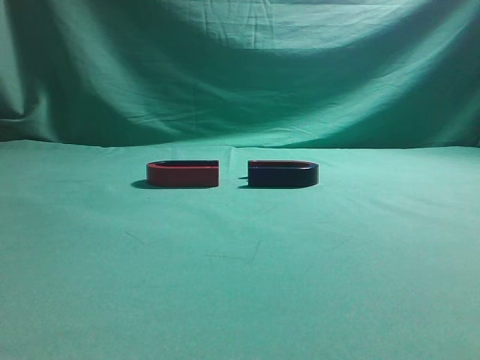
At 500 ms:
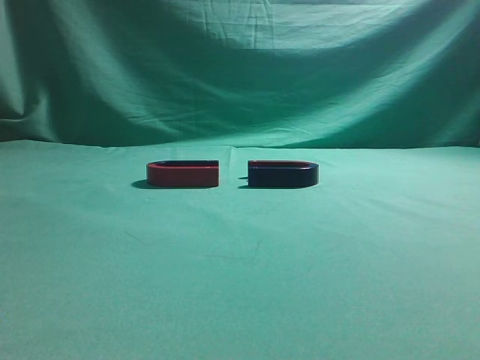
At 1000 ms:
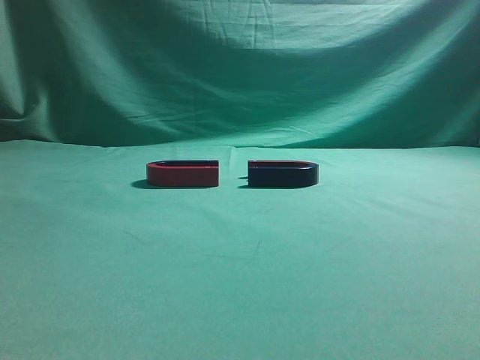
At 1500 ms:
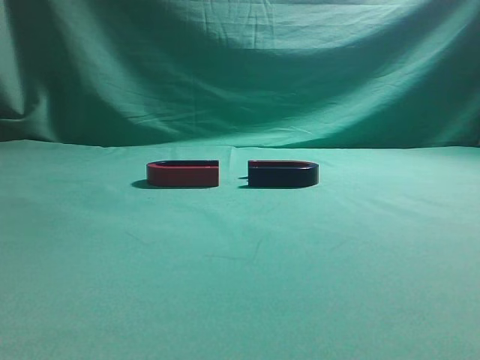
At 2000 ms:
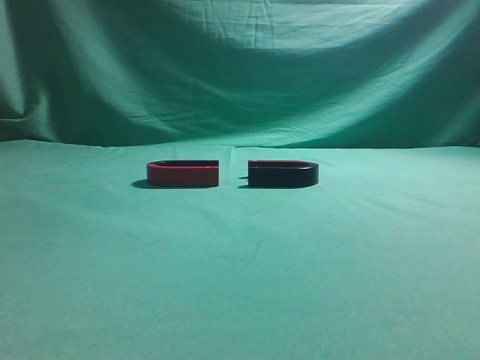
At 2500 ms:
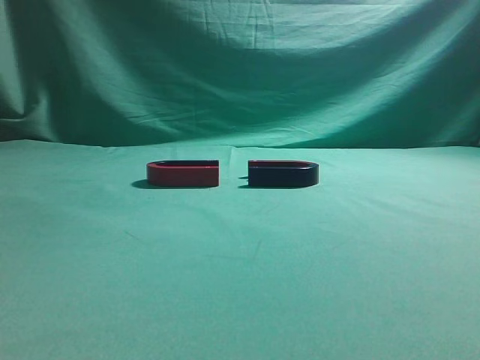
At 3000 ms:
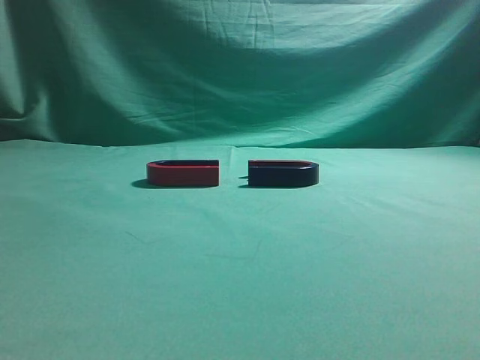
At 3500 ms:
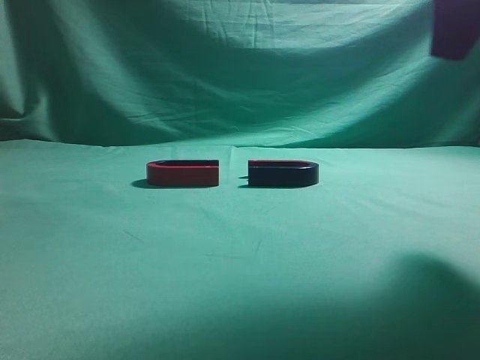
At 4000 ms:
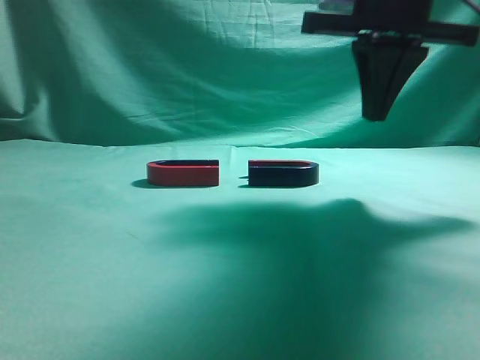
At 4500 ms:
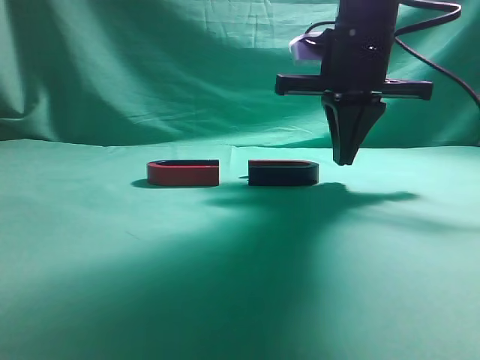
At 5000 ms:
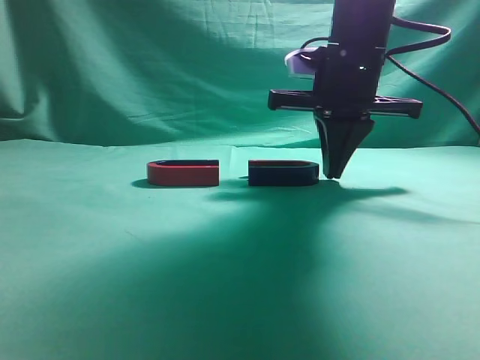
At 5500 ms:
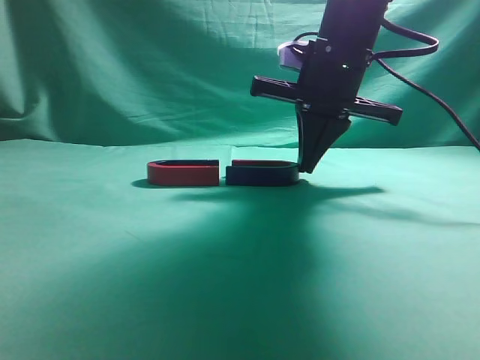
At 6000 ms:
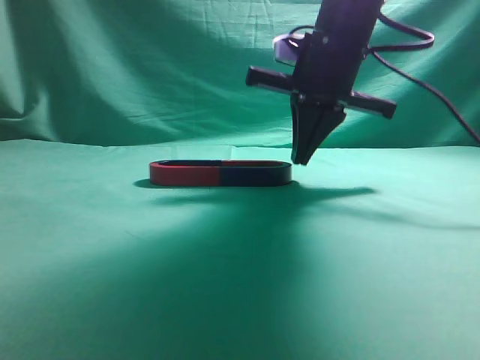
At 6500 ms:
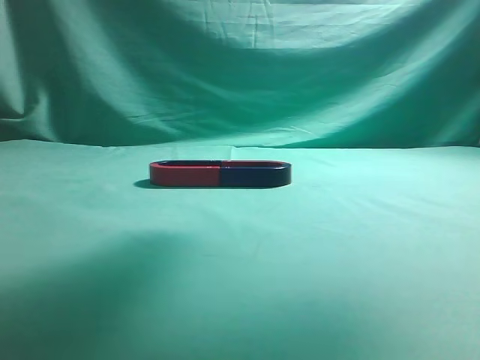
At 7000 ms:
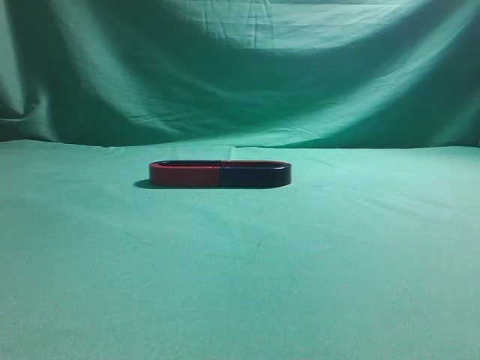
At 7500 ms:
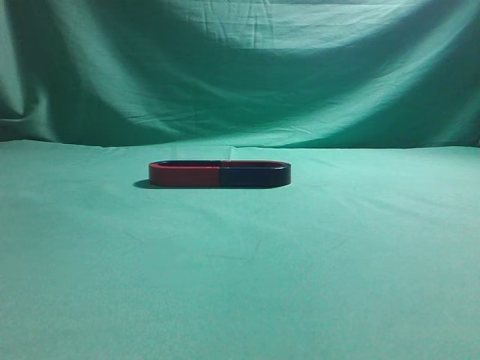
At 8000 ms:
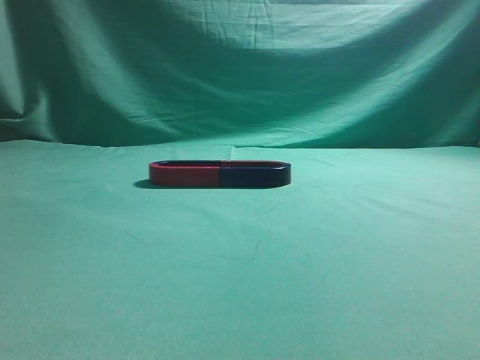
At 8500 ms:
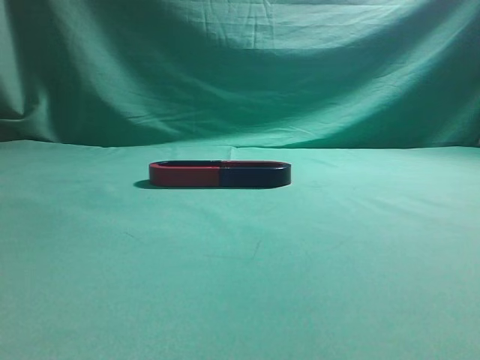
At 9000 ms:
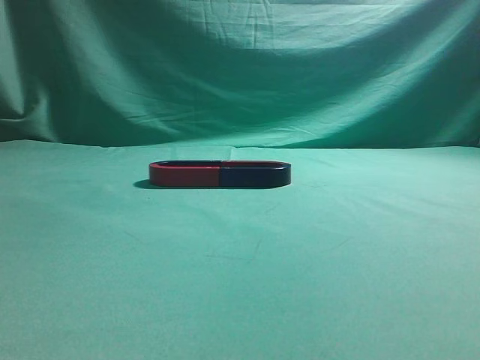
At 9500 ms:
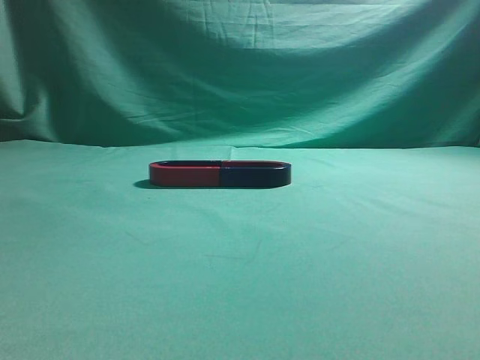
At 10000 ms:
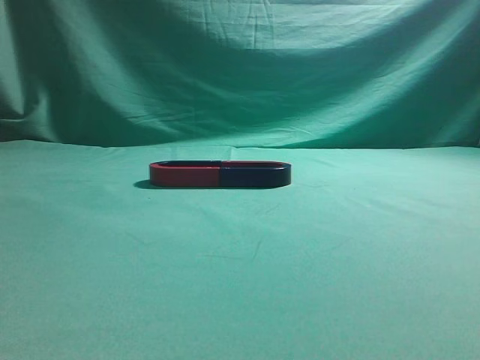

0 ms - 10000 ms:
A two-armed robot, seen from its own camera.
Task of the whole recording: push the magnet on the table from its original position to another position.
Step, 0 ms - 6000 ms: Push the magnet on the right to connect the magnet on the left.
2000 ms - 4000 ms: The right gripper moves forward and to the left, approximately 35 cm.
4000 ms - 6000 ms: The right gripper is displaced forward and downward by about 10 cm.
6000 ms - 8000 ms: The right gripper heads backward, to the right and upward, covering some 40 cm.
